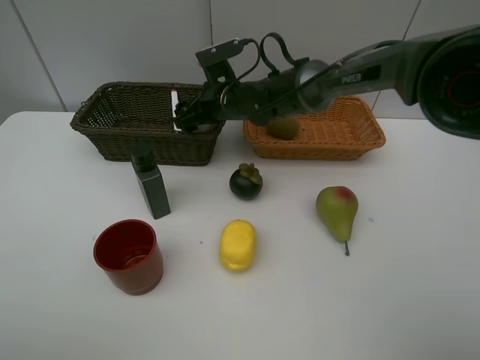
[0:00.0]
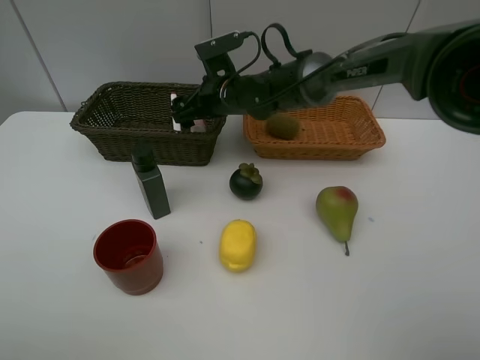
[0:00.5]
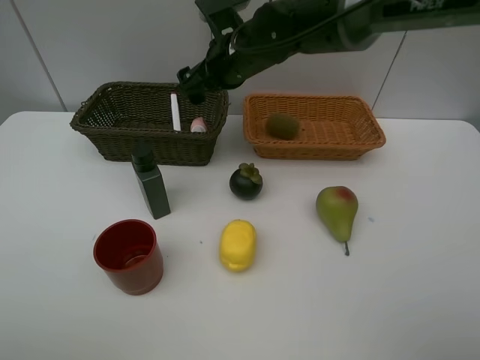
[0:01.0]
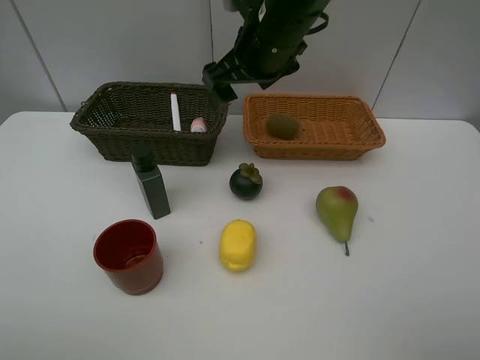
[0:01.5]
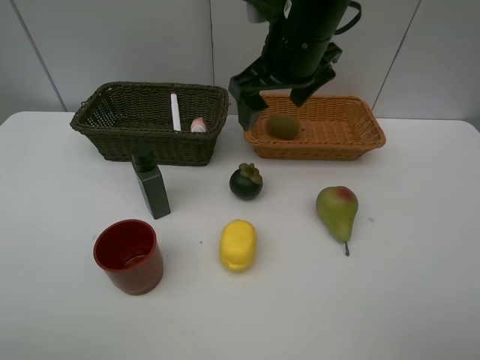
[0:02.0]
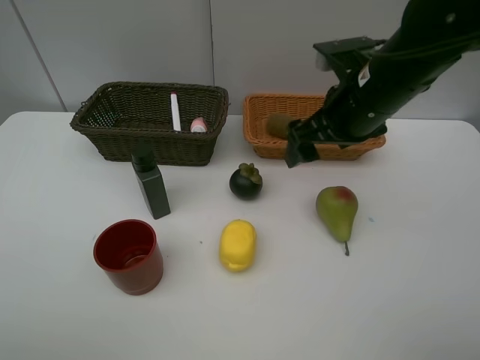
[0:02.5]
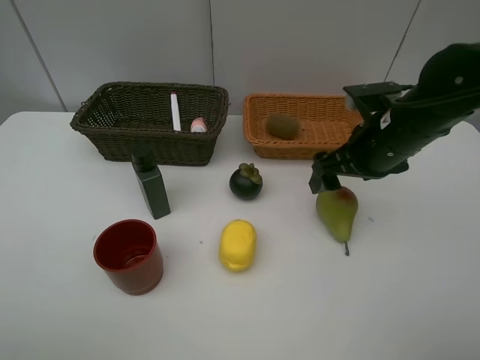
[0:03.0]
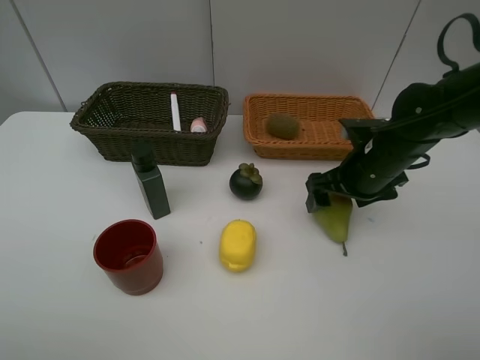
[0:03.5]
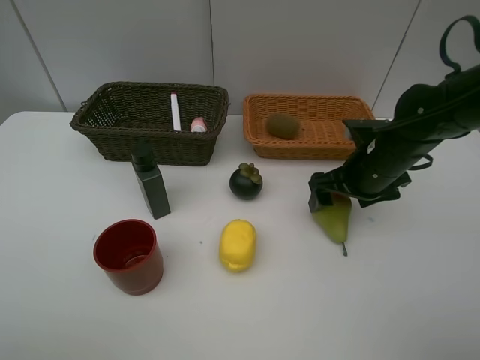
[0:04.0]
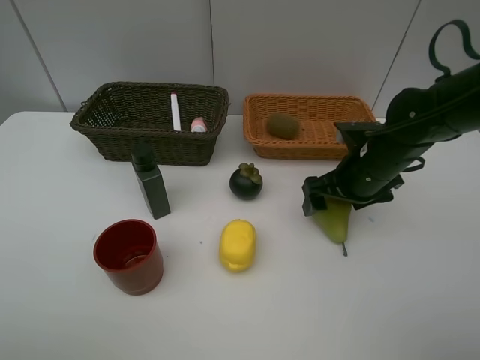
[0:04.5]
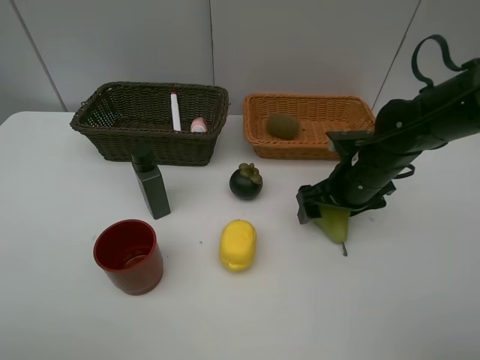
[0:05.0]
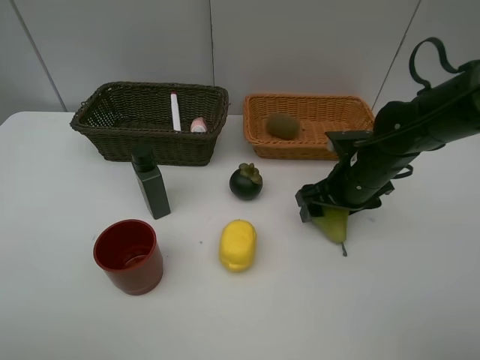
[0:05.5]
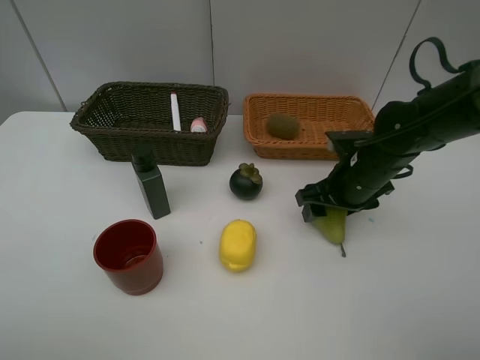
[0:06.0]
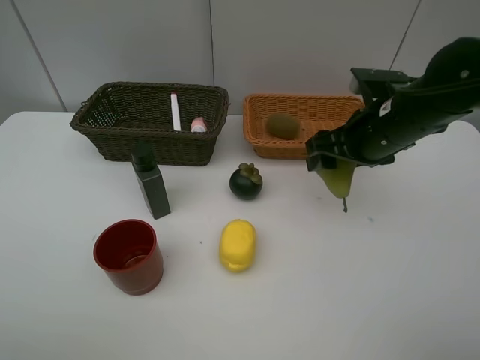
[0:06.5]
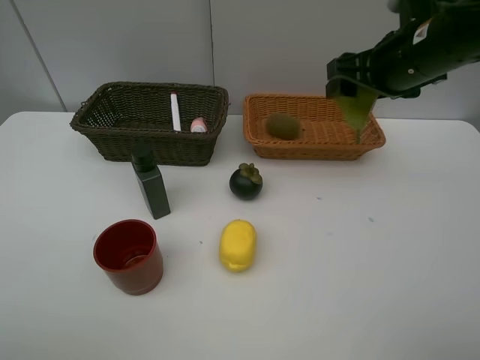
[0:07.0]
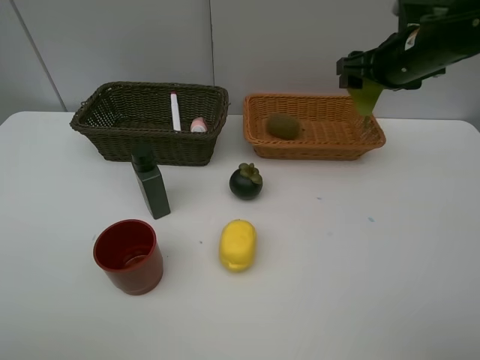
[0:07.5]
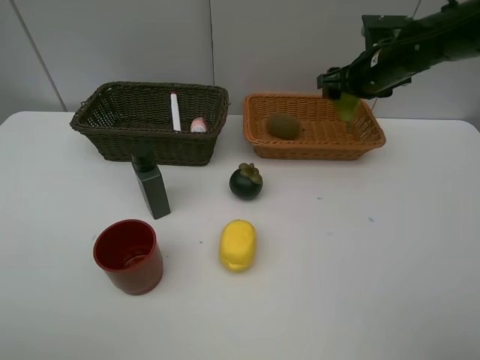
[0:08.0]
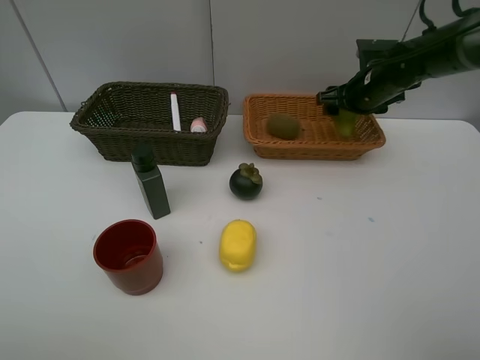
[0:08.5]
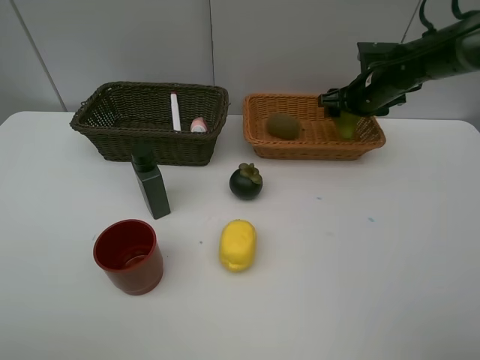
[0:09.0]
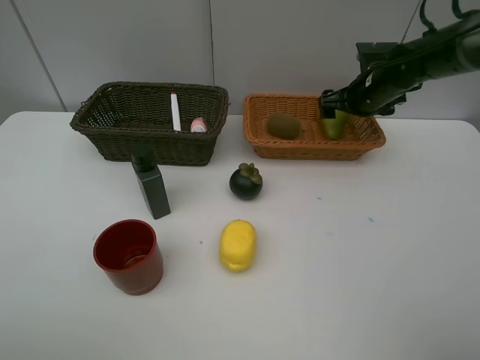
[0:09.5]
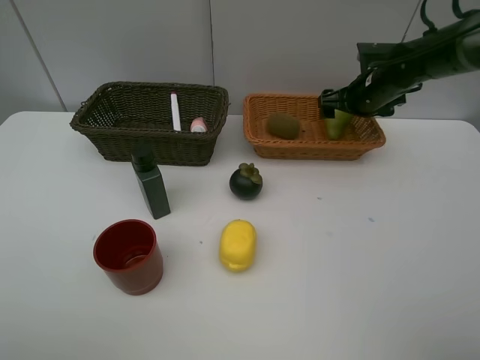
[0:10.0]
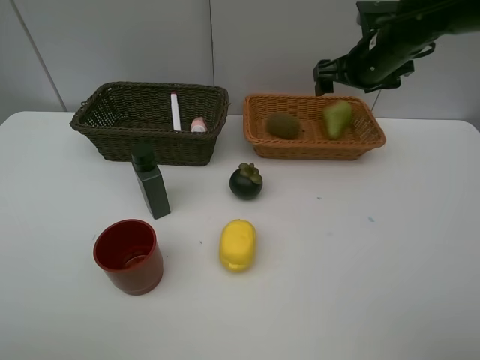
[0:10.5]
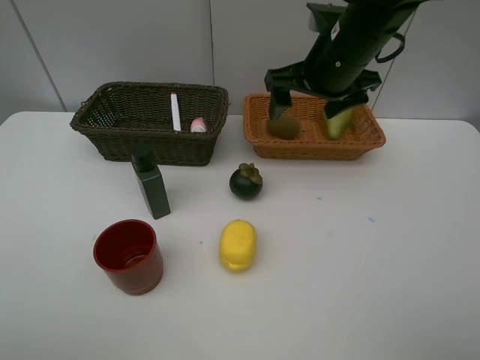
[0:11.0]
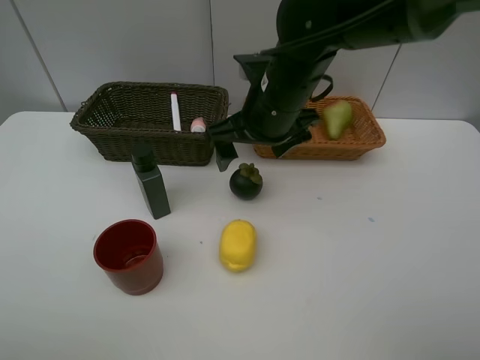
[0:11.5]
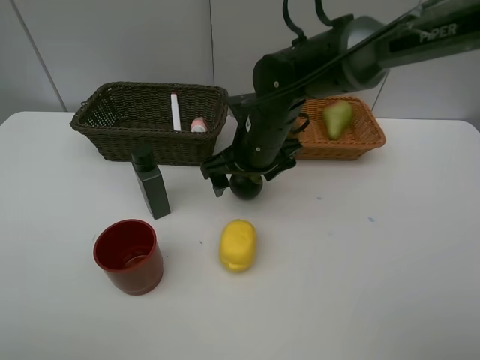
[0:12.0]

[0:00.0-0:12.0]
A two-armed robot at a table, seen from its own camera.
Task of the whole recording: Place multiple objects separately in different baskets.
Step, 0:01.0 to 0:06.0: Pick up the pear with right gripper.
Step, 0:06.5 to 0:10.5: Place the pear in the light basket with right gripper.
0:00.0 to 0:02.0: The right gripper moves upward, backward and to the right, roughly 20 cm.
0:02.0 to 0:04.0: The right gripper moves downward and to the right, roughly 20 cm.
0:04.0 to 0:06.0: There are only small adjustments of the grippers.
0:06.0 to 0:08.0: The right gripper moves forward and upward, some 15 cm.
0:08.0 to 0:10.0: The grippers stay close to where they were, moving slightly.
0:10.0 to 0:12.0: The right gripper shifts some 25 cm to the left and backward.

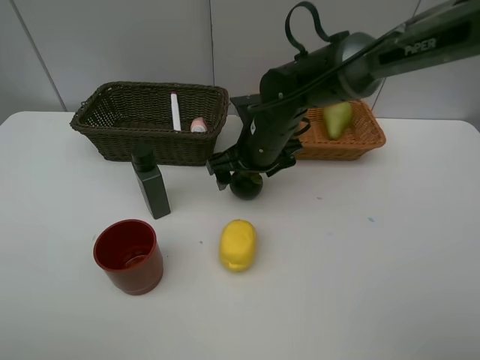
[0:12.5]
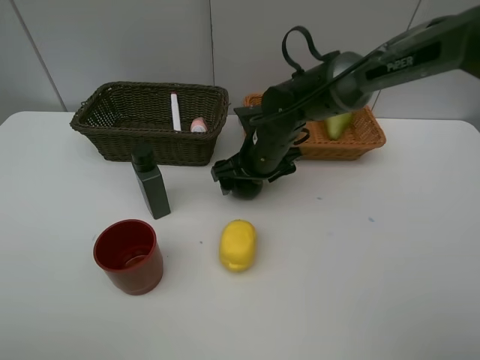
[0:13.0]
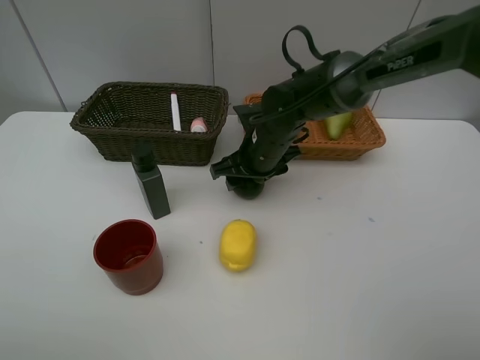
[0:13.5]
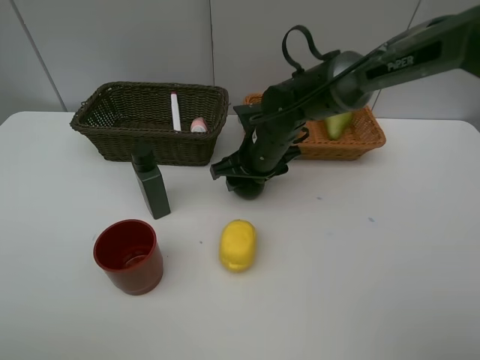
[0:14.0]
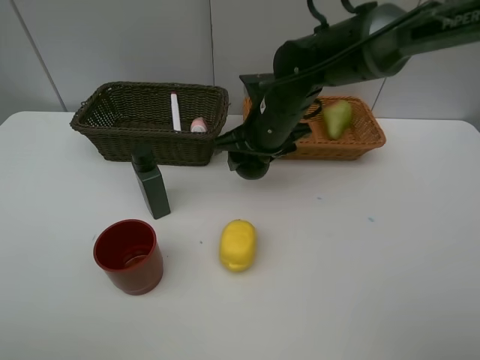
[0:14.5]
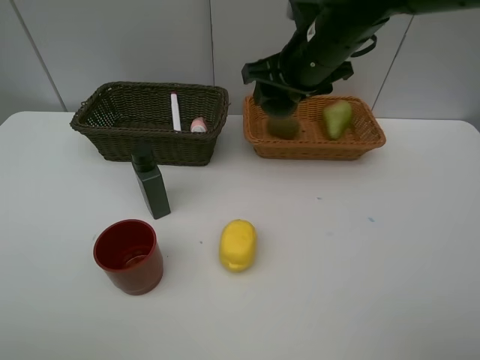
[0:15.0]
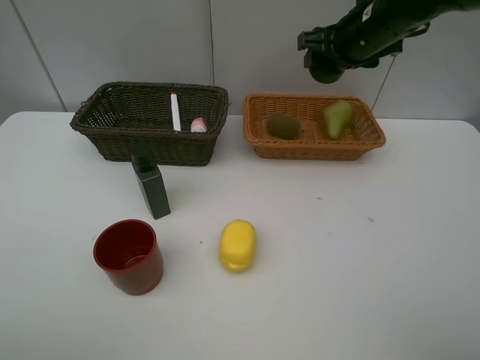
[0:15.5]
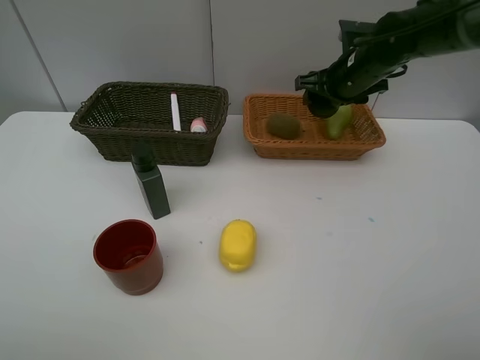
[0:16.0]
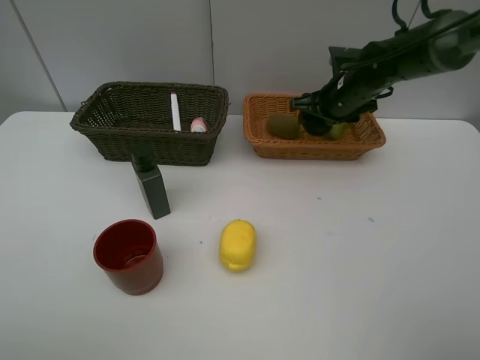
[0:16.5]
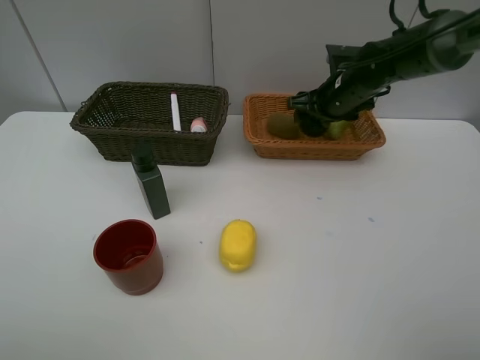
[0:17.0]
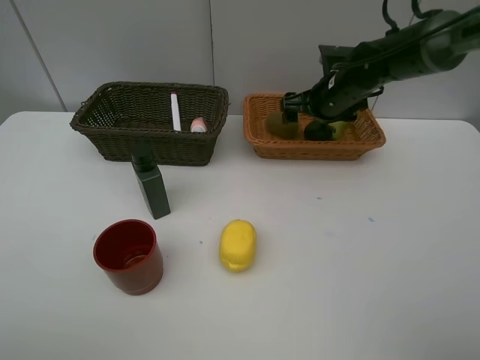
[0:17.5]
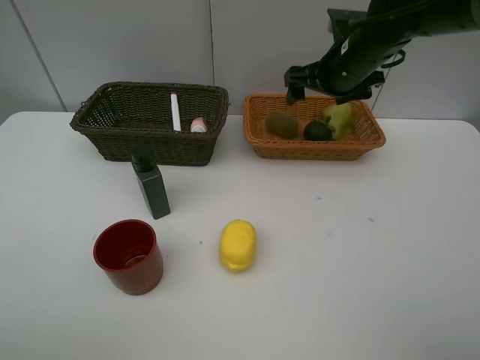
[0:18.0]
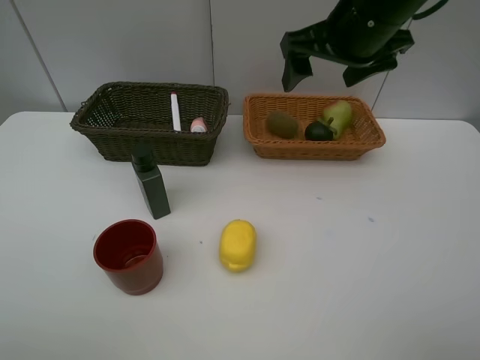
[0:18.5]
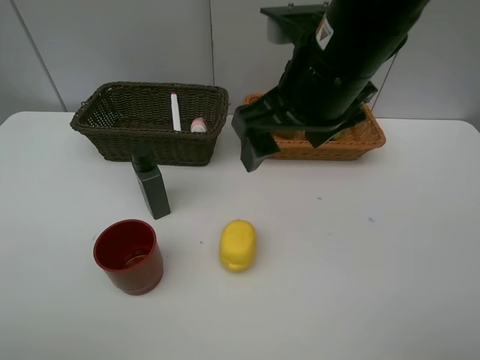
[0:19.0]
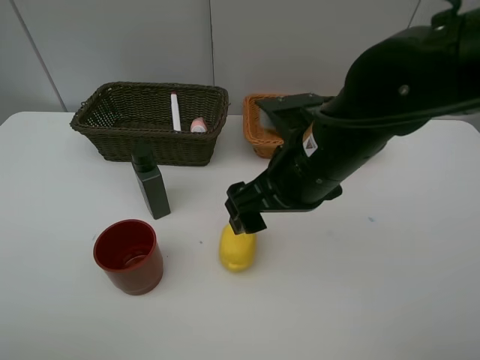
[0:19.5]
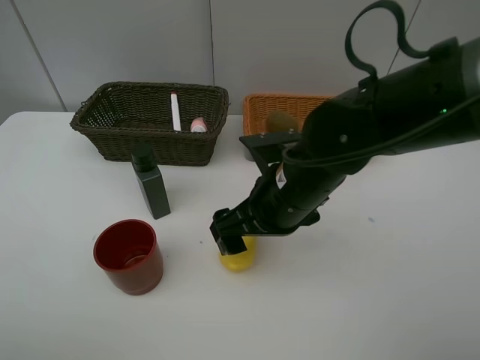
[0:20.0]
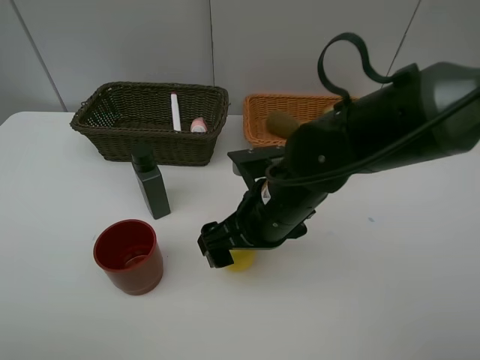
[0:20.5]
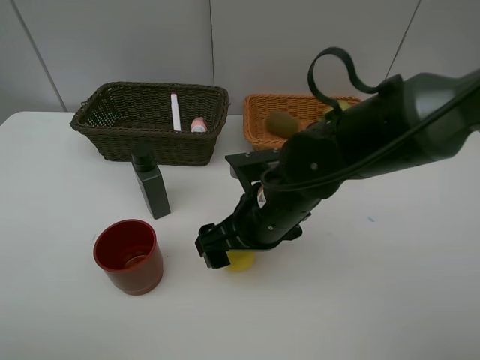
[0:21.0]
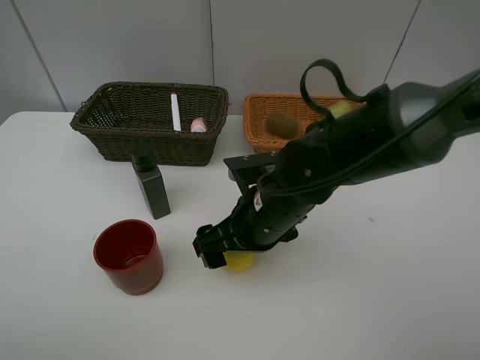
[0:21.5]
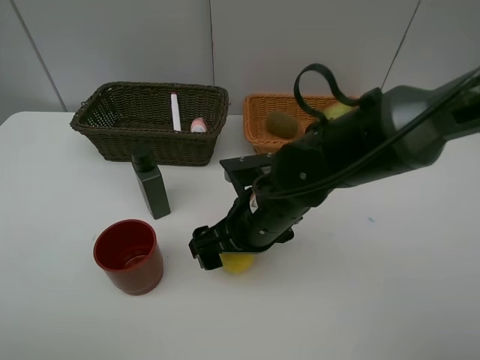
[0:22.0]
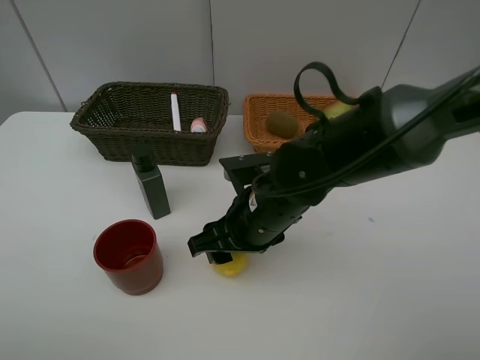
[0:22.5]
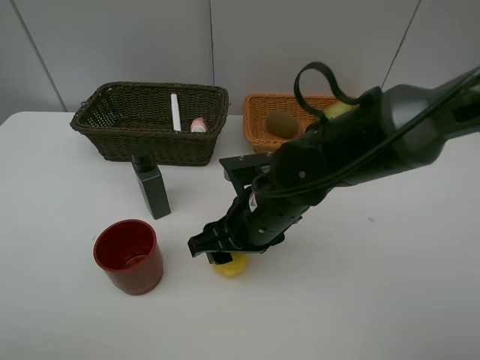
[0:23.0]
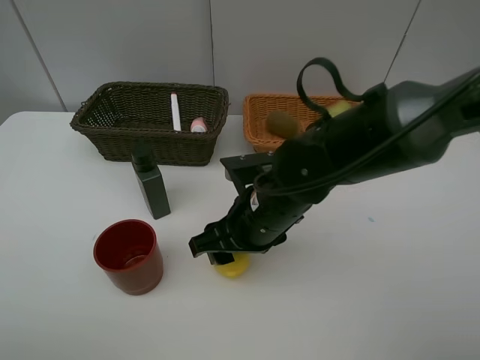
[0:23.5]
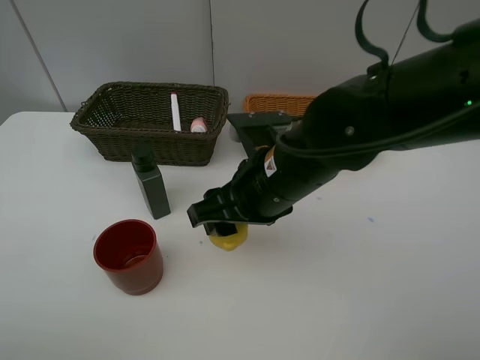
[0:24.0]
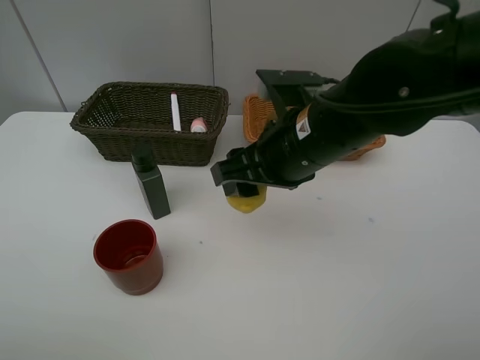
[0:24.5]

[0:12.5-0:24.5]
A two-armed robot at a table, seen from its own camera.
Task of the whole recording: Place multiple objects separately in different baskets.
Step, 0:14.5 to 0:18.0: Place the mangosteen in the light basket with right gripper.
Step, 0:18.5 to 0:23.5: Pick up the lemon with right gripper.
0:12.5 to 0:14.5: The right gripper closes.
0:14.5 to 0:16.5: The right gripper travels to the right and forward by approximately 15 cm.
0:16.5 to 0:18.5: The right gripper is displaced upward and backward by roughly 20 cm, and opens up.
0:18.5 to 0:20.5: The right gripper is displaced downward, backward and to the left by some 20 cm.
0:20.5 to 0:22.5: The right gripper closes its fingers.
0:22.5 to 0:24.5: The right gripper goes roughly 10 cm upward.

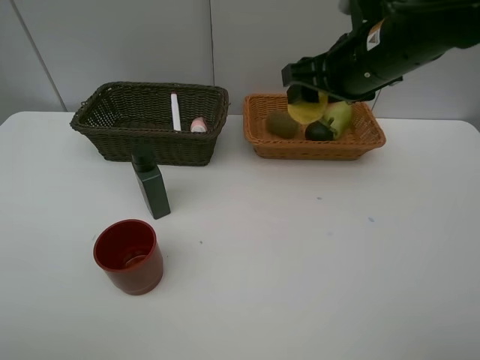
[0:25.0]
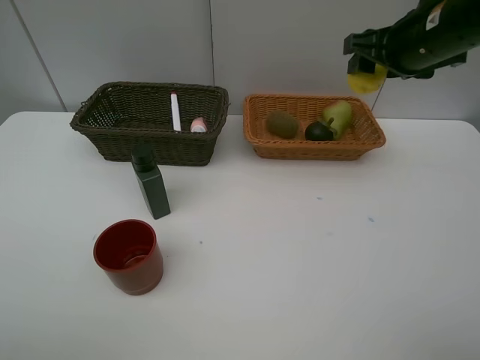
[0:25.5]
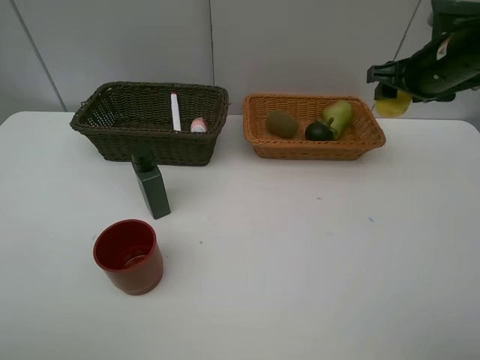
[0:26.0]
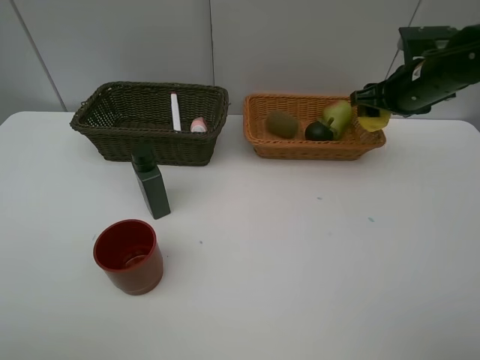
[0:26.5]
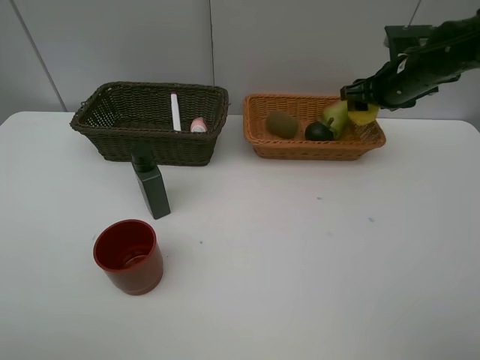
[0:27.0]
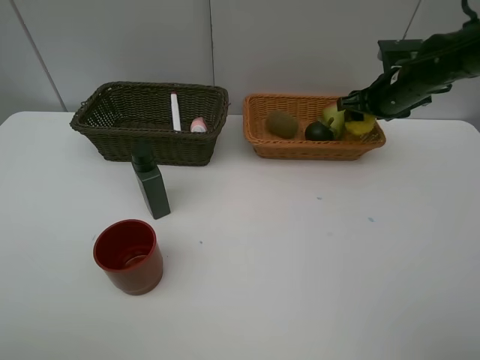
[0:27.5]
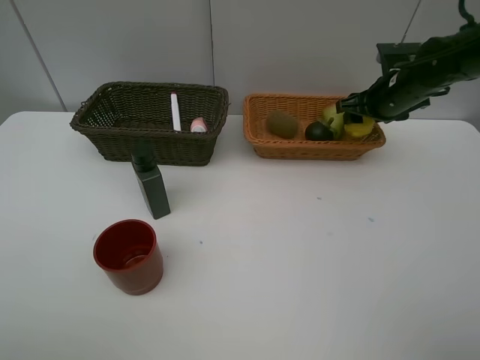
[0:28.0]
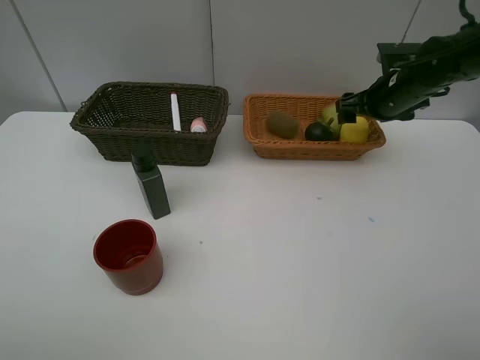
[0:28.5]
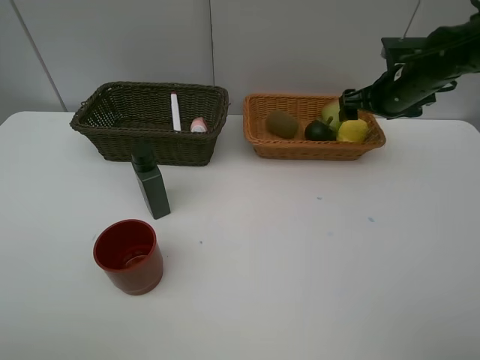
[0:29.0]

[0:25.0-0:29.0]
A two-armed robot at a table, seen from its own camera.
Task of the whole recording: Place multiple objects separately in different baskets.
0:25.0 to 0:27.0: The right gripper is displaced to the right, forward and downward by approximately 15 cm.
0:27.0 to 0:29.0: The right gripper opens.
